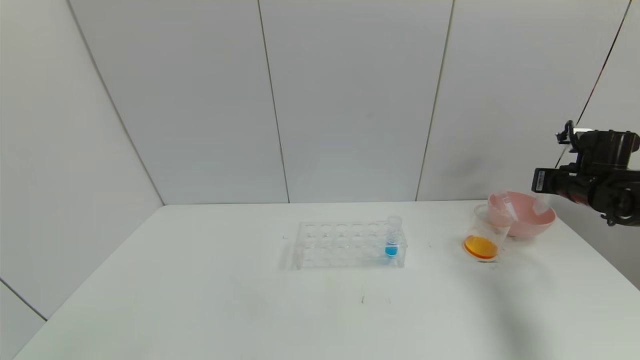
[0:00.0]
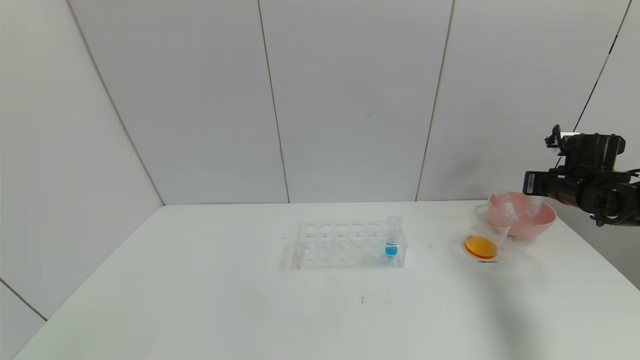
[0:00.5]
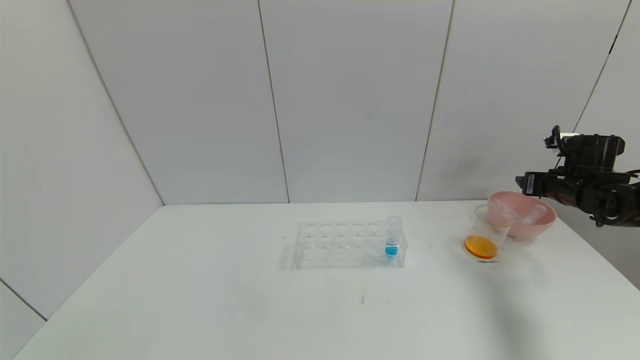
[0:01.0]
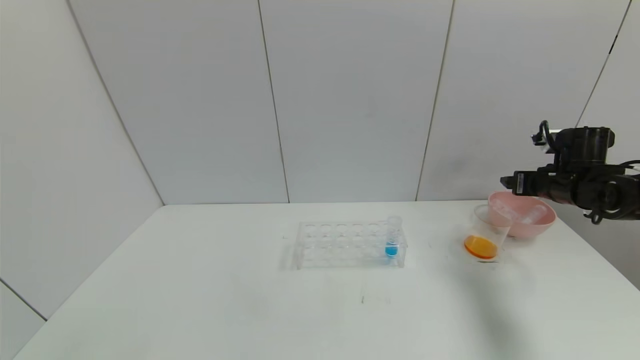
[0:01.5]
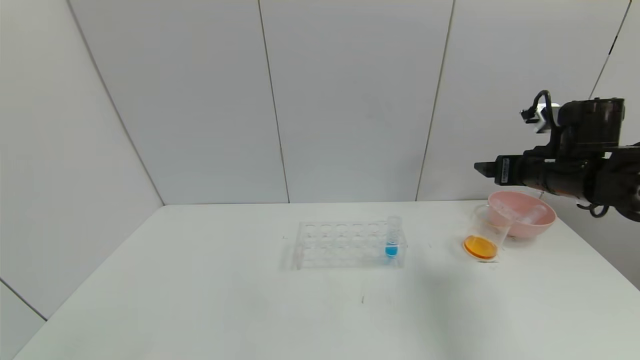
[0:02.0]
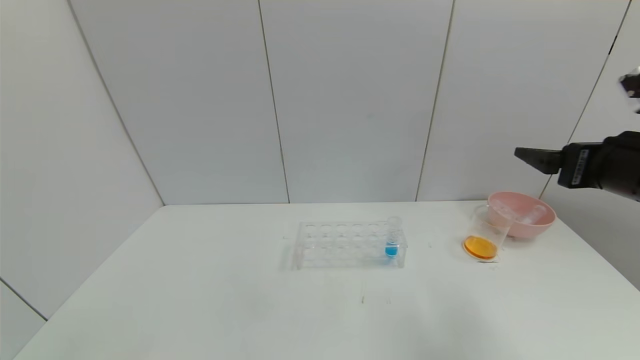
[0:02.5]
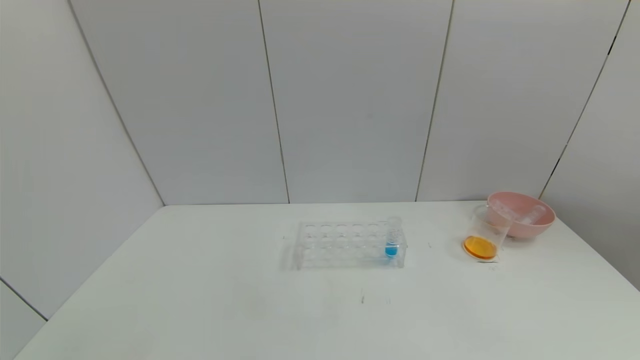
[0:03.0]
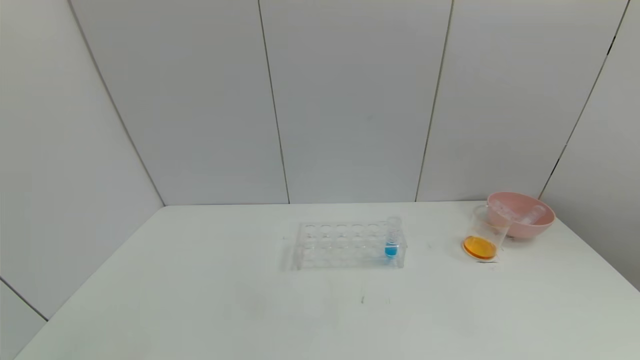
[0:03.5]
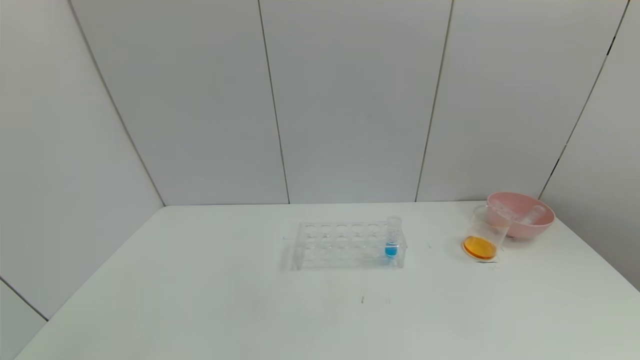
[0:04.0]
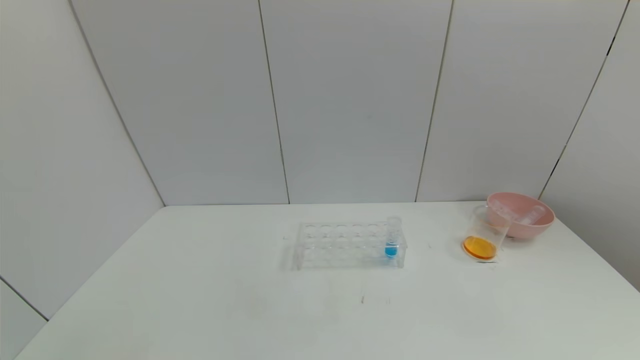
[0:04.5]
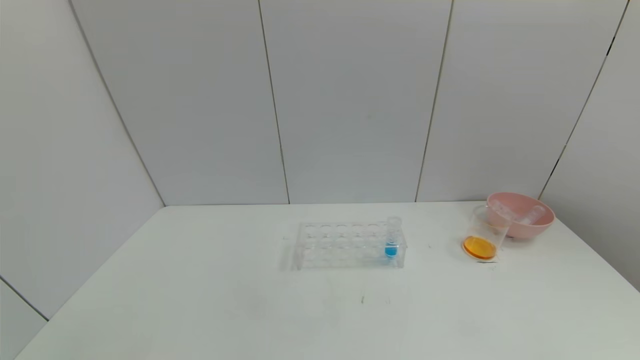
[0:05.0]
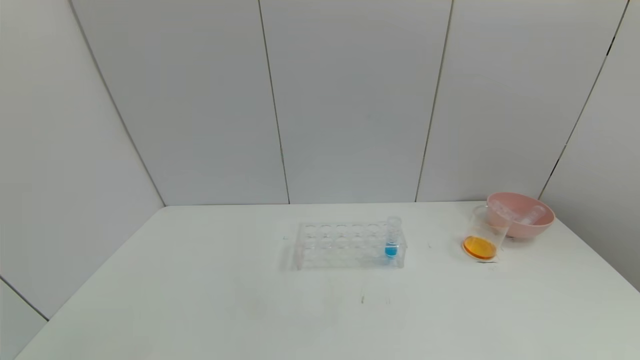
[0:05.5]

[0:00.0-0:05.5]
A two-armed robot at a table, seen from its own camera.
Task of the whole recording: pick up the test tube with yellow pigment and the test tube with red pigment by grippers and pour them into the beaker.
0:00.0 to 0:02.0: The right gripper travels to the left, backward and upward by some 15 cm, and opens up.
0:02.0 to 0:03.5: The right gripper shifts roughly 30 cm backward.
